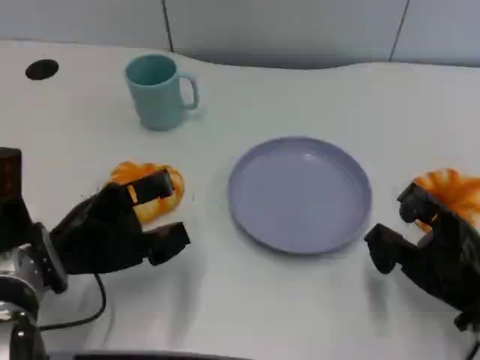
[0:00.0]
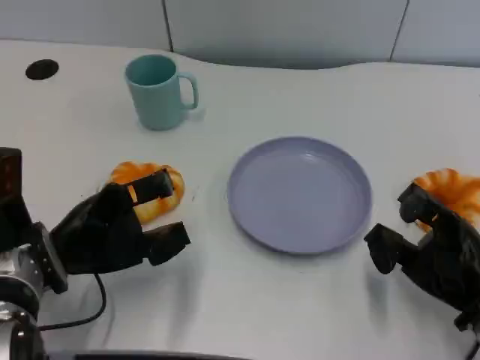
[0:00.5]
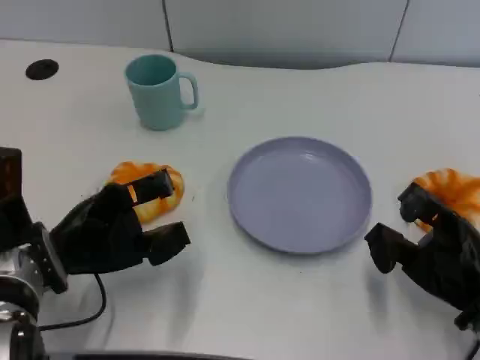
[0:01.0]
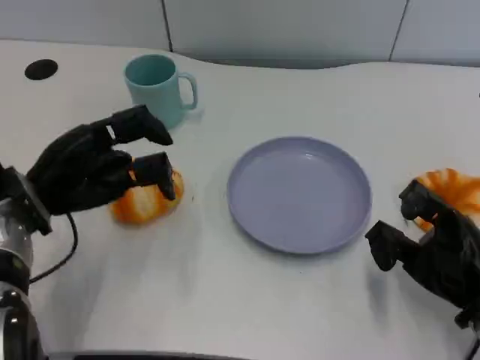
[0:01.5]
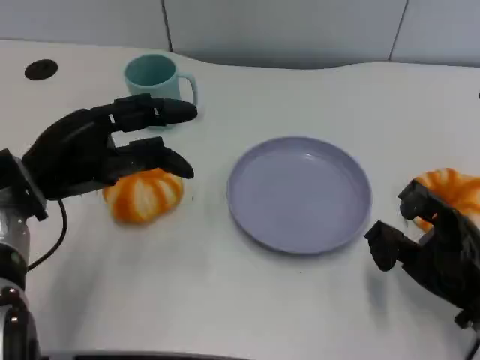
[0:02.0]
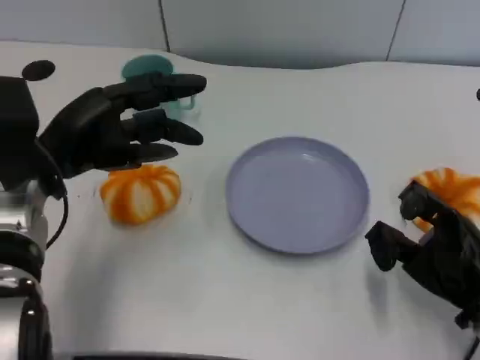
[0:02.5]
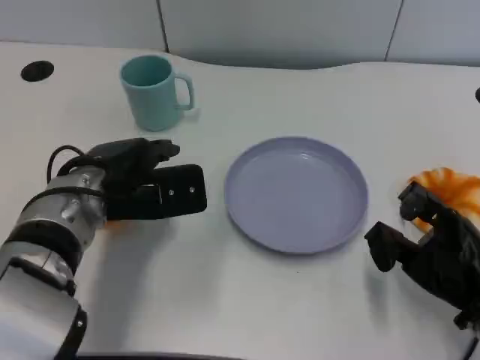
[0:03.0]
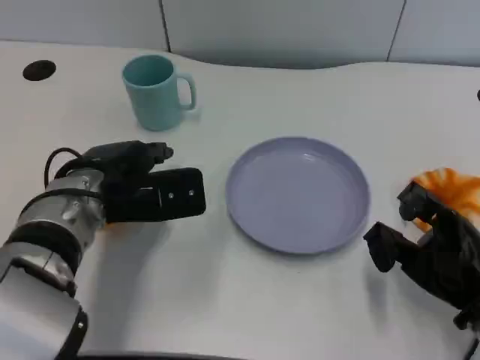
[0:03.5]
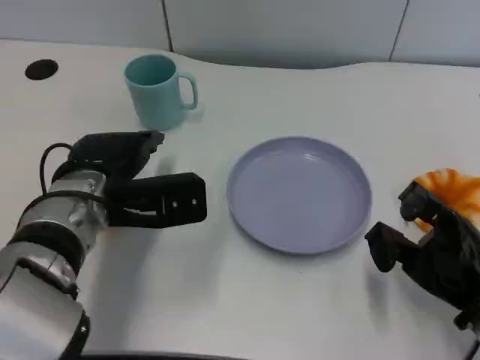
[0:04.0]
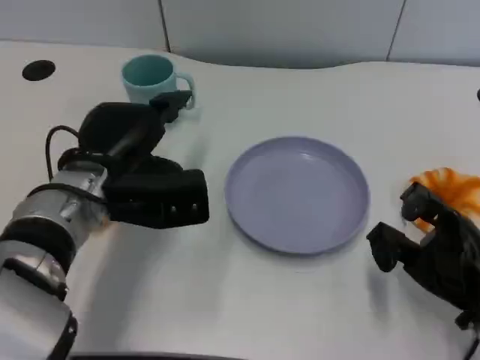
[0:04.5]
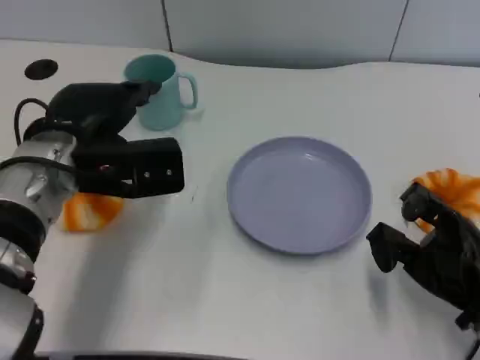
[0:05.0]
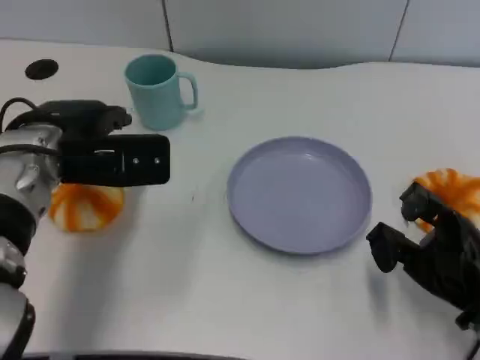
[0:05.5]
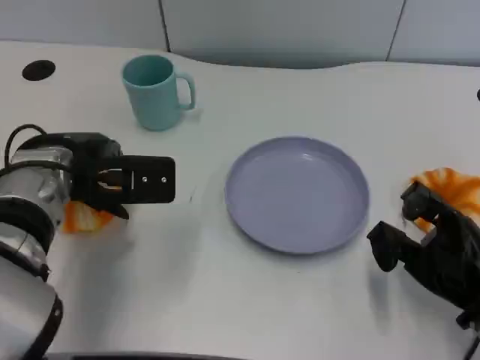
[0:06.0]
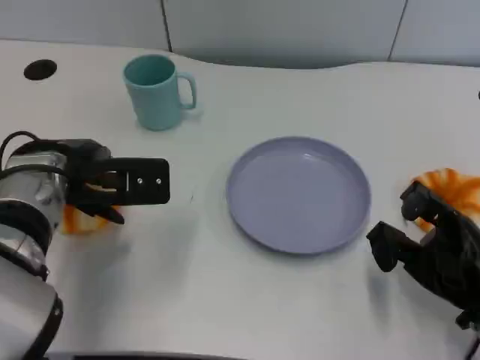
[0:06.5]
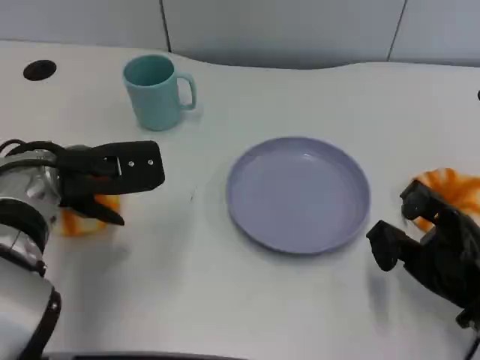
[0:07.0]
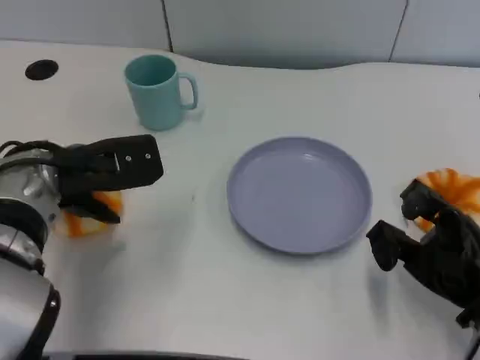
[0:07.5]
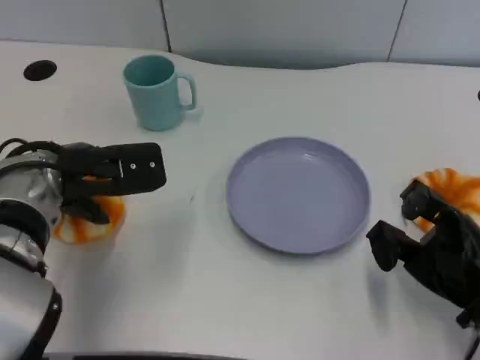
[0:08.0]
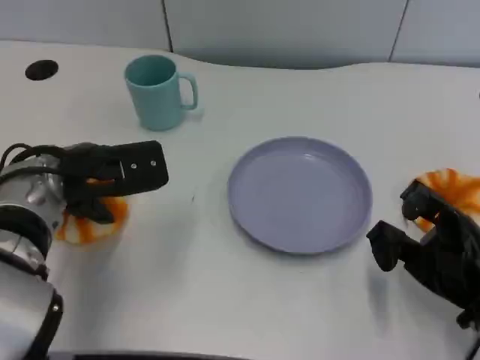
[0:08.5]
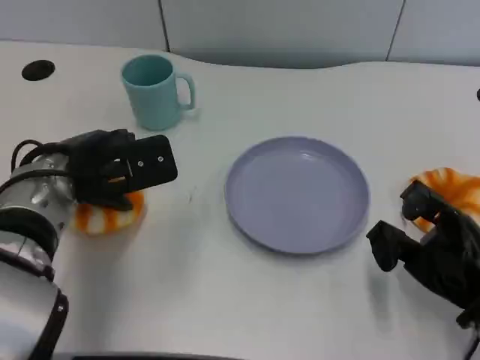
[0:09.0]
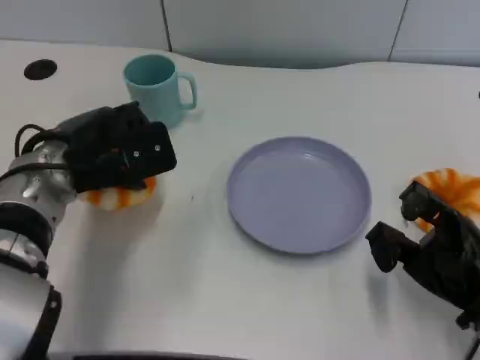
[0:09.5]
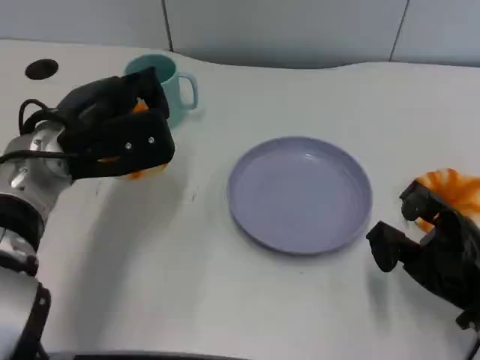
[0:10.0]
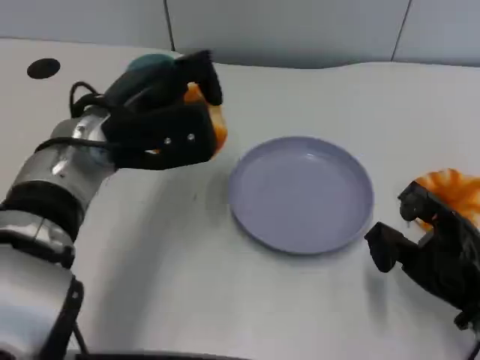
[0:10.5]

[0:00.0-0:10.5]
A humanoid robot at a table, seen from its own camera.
Task of the whole recording: Grasp the bread from the table and place it into the plate.
0.0 to 2.0 s: The left hand is displaced upward by about 5 cm.
2.0 to 4.0 s: The left hand is displaced to the right by roughly 10 cm.
6.5 to 8.5 s: The hands move only a little.
8.5 to 10.5 s: The left hand is displaced to the right and upward by some 10 cm.

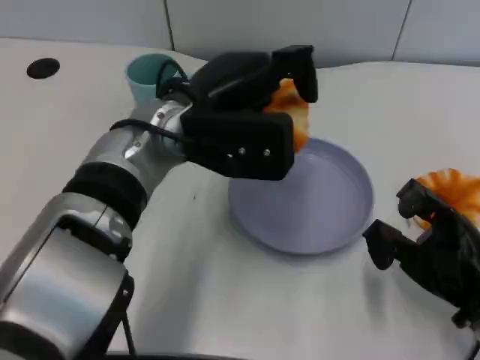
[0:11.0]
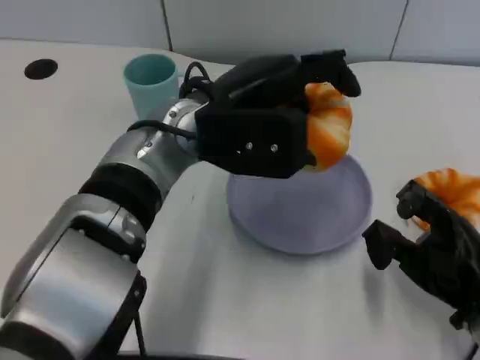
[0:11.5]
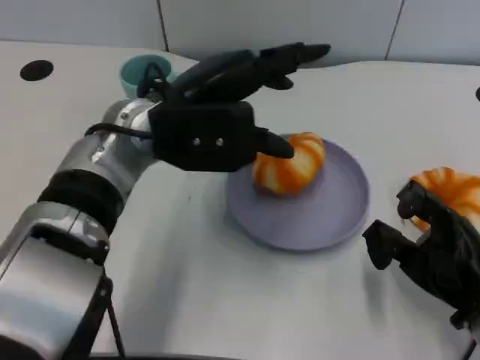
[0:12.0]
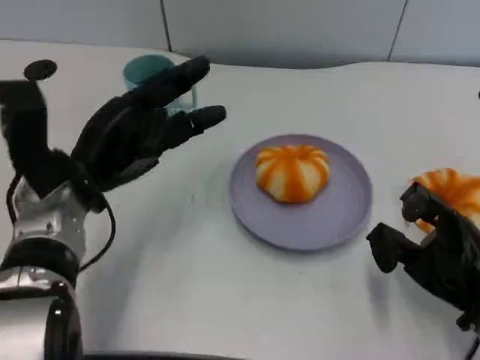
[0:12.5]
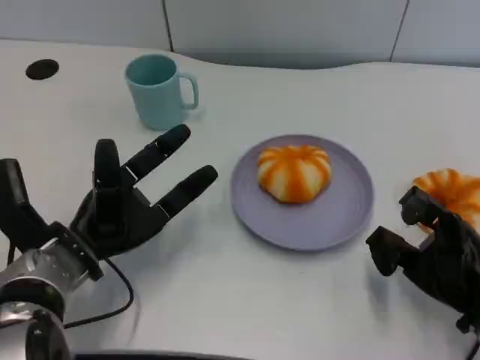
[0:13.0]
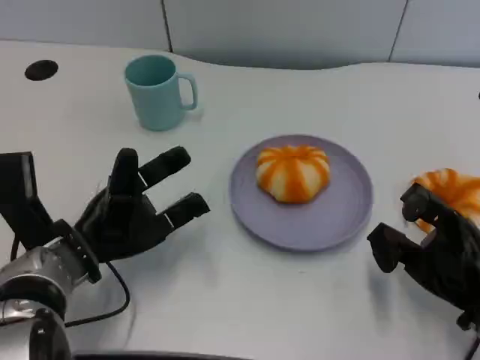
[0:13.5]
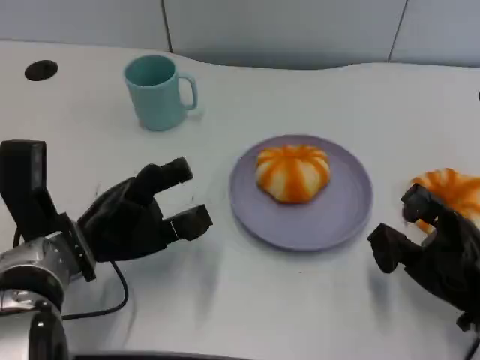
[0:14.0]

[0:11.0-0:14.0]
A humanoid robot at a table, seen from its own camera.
Task of the whole recording: Grasp the bread from the table and place it into the plate.
11.0 to 12.5 s: The left hand goes some 15 cm to the left and downward.
12.5 to 14.0 s: The left hand changes place by roughly 5 cm.

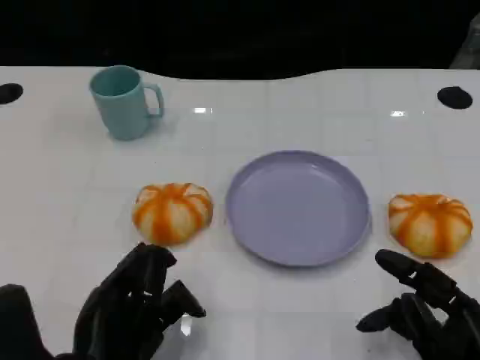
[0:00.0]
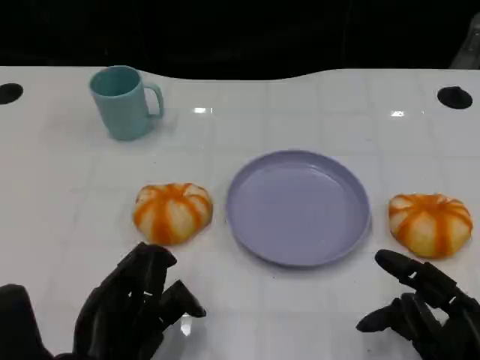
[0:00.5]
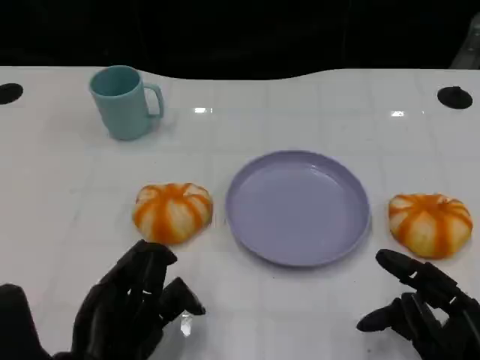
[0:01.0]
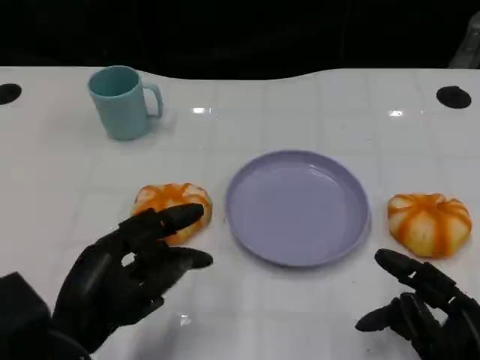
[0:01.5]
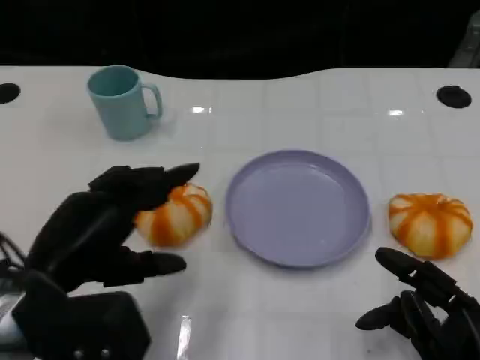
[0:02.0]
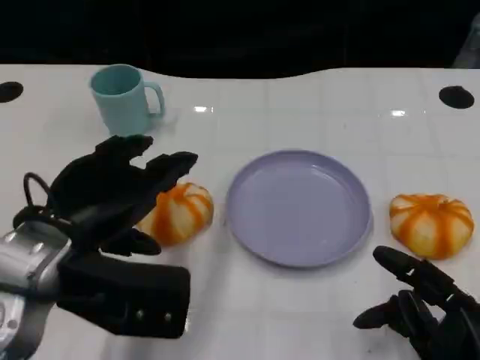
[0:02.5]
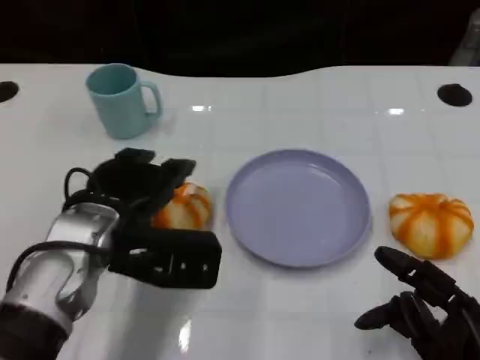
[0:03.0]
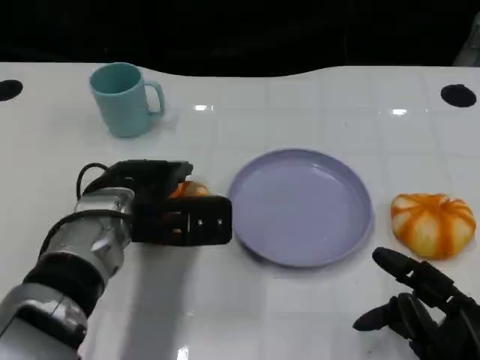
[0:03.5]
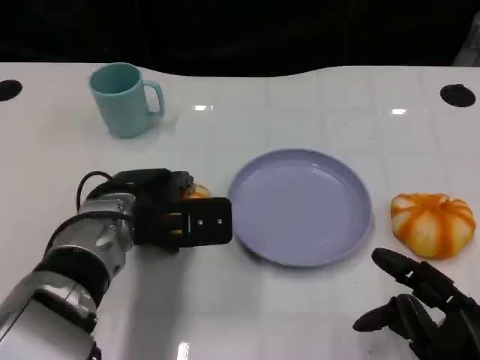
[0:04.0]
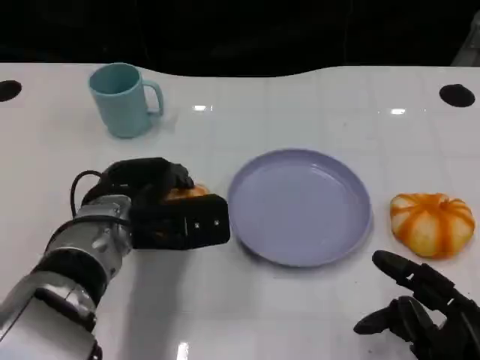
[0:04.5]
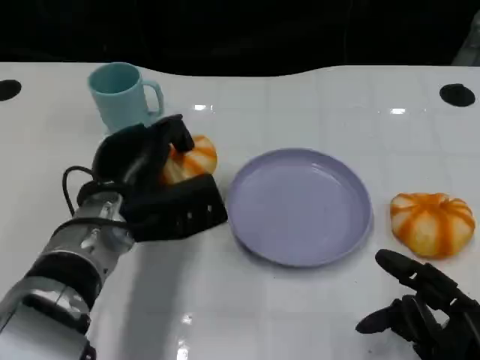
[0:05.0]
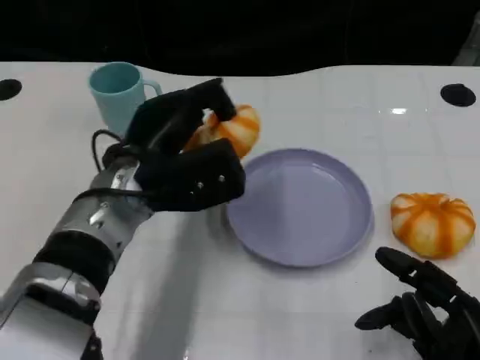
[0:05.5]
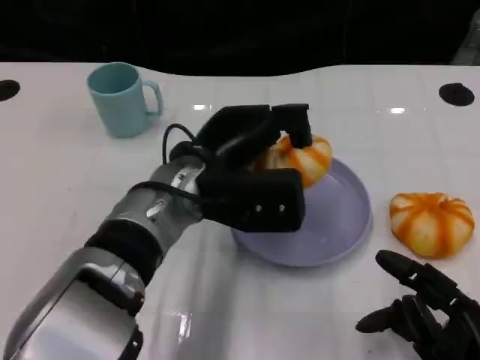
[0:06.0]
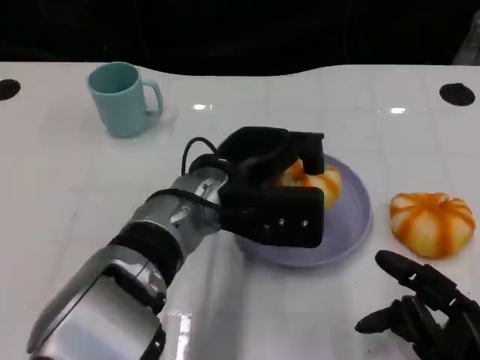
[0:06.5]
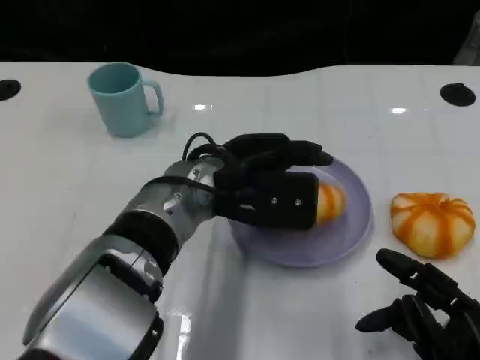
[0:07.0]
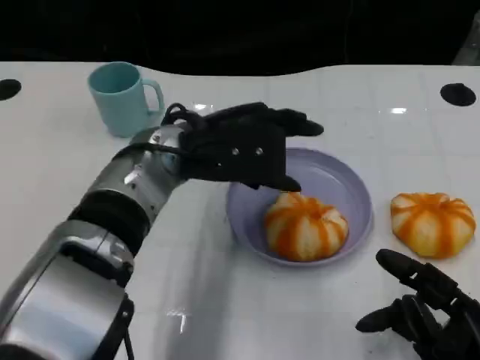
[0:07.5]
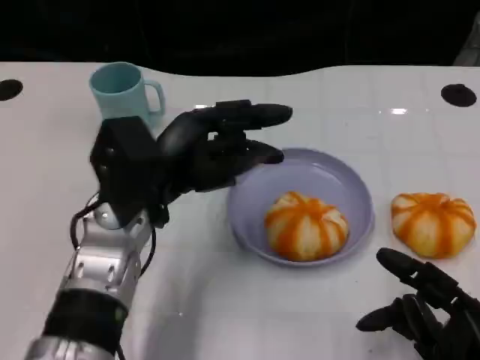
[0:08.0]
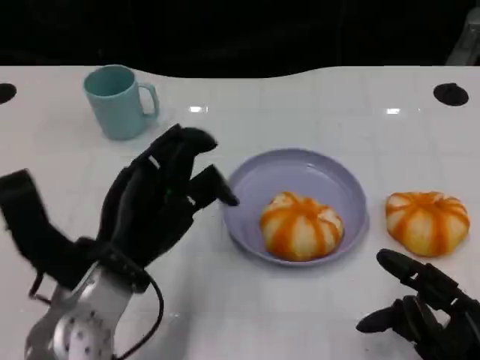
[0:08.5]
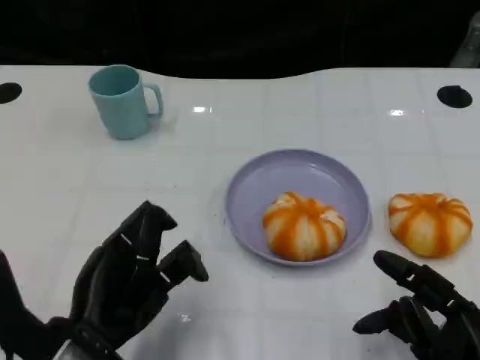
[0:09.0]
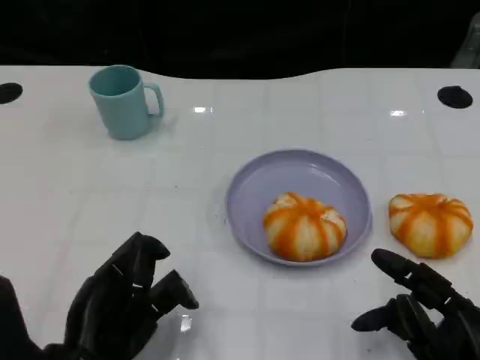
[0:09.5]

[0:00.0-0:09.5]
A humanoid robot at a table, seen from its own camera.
Task of the whole recording: Grasp the bread from the table and place it into the plate.
0.0 to 2.0 s: The left hand is displaced upward by roughly 10 cm.
2.0 to 4.0 s: The left hand heads forward, to the right and downward, covering roughly 15 cm.
4.0 to 5.5 s: The left hand shifts by about 5 cm.
7.5 to 9.5 s: The left hand travels backward, downward and to the left by approximately 20 cm.

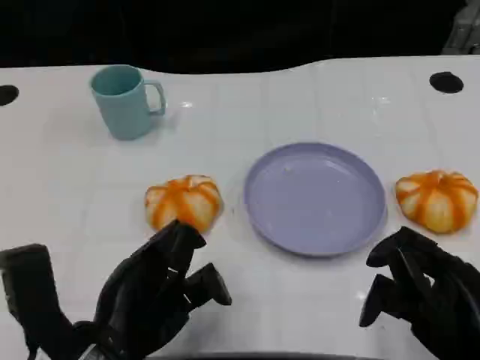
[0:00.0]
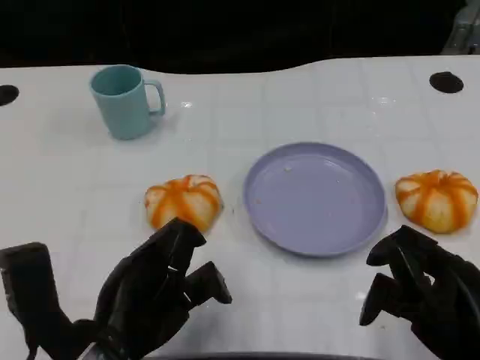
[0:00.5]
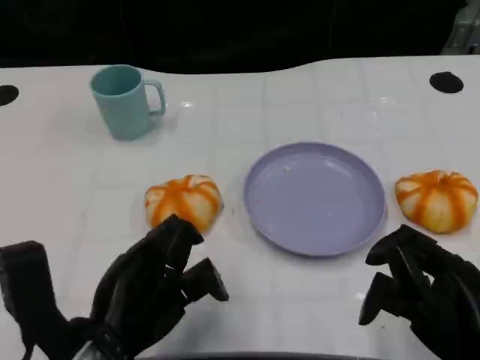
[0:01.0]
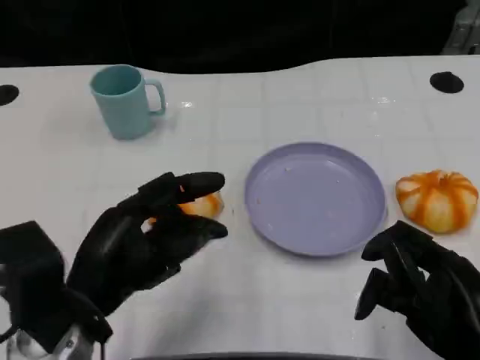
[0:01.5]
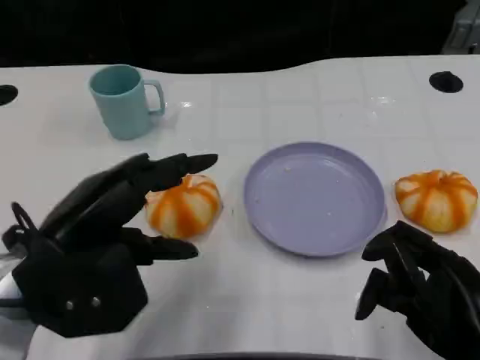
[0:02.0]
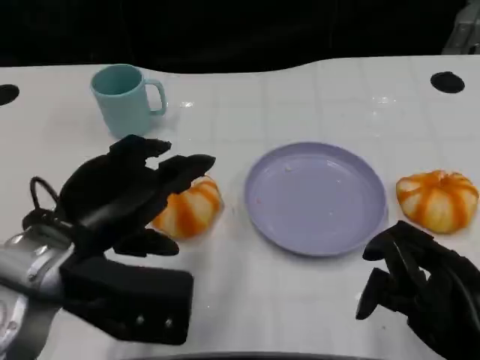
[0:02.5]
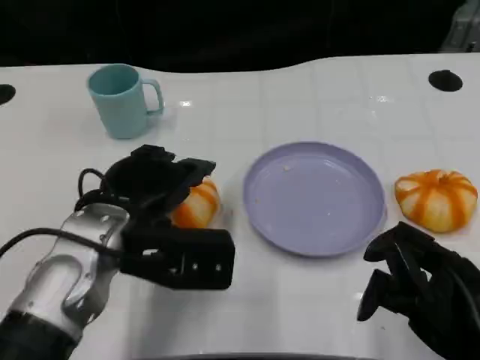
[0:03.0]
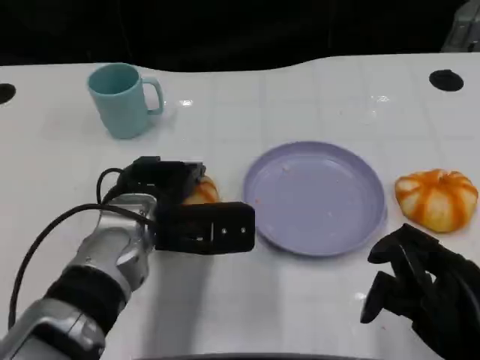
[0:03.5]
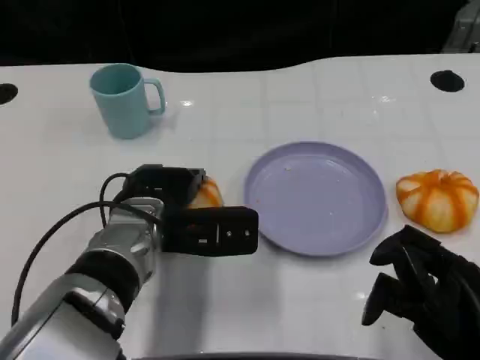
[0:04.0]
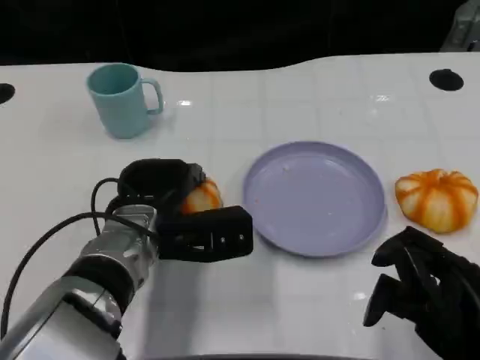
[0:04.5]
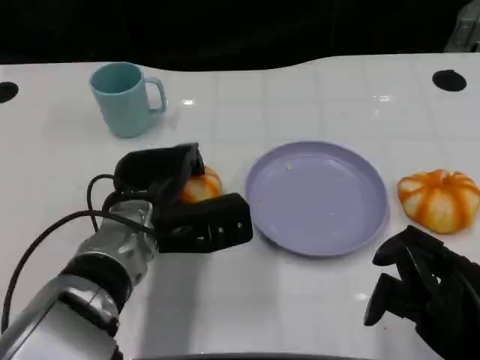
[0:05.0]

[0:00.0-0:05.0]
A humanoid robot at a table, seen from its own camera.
Task of the whole recording: Grasp the bread from the table and place it into the plate.
0.0 to 2.5 s: The left hand moves upward and forward, approximately 10 cm.
2.5 to 5.0 s: The left hand travels forward, downward and to the right by approximately 10 cm.
